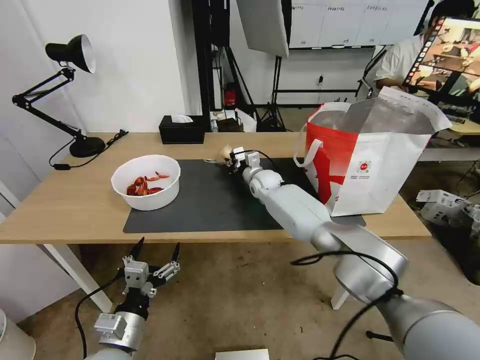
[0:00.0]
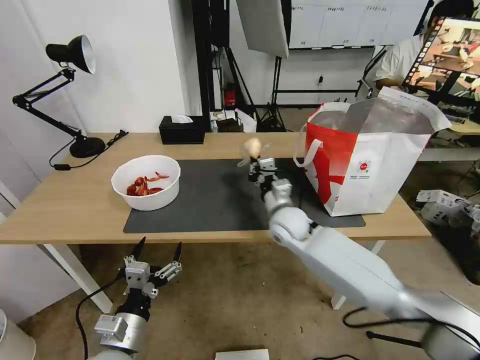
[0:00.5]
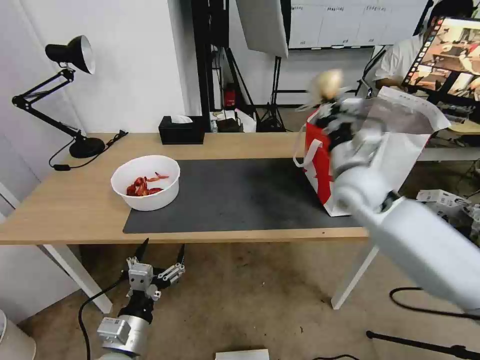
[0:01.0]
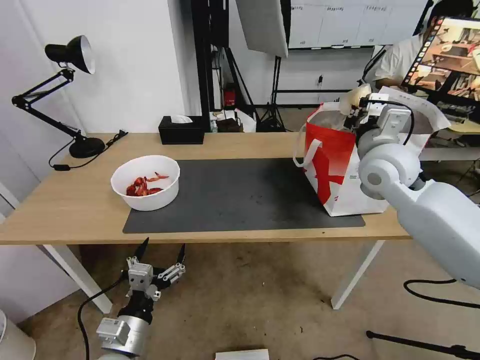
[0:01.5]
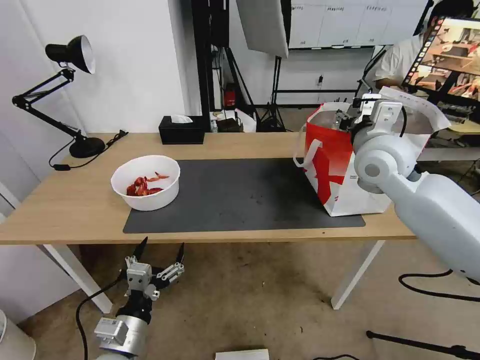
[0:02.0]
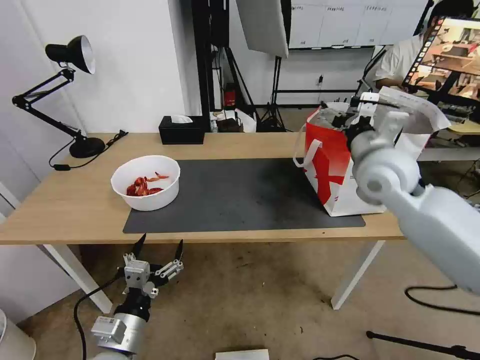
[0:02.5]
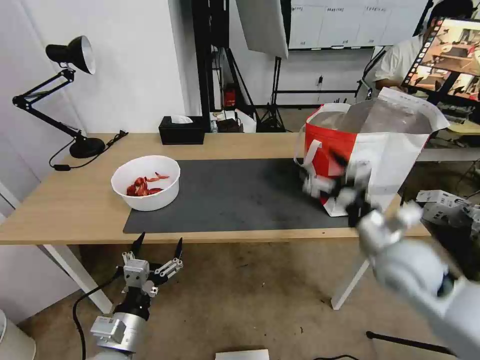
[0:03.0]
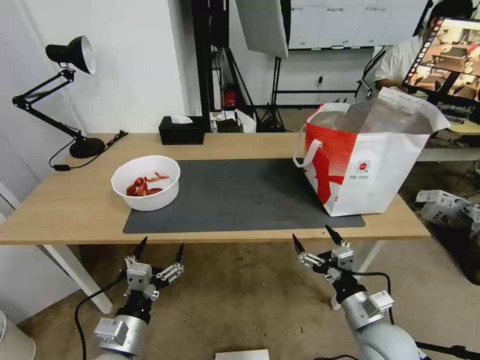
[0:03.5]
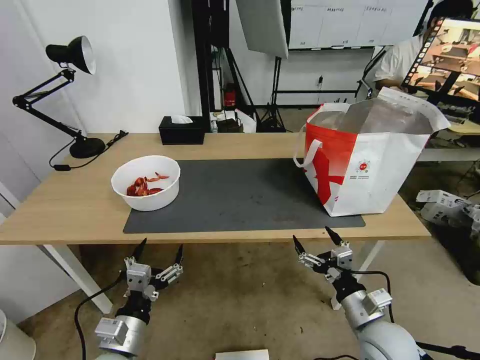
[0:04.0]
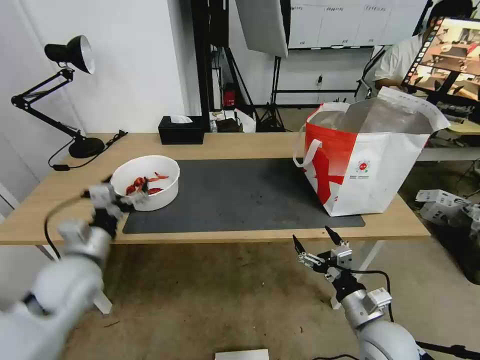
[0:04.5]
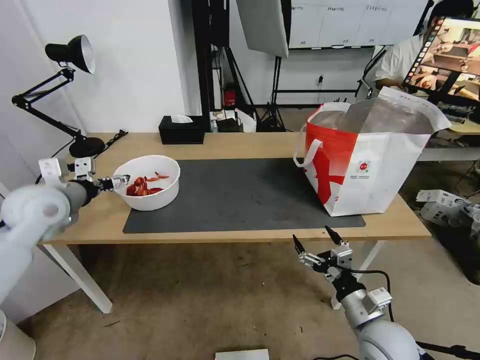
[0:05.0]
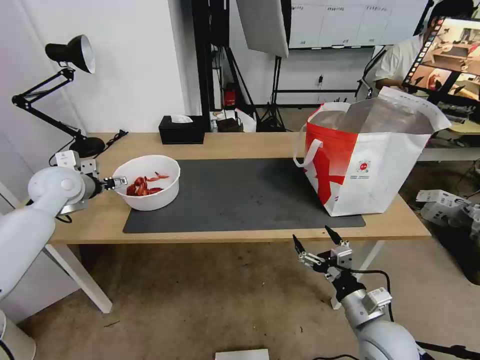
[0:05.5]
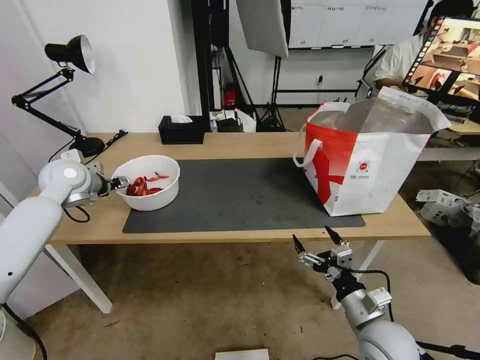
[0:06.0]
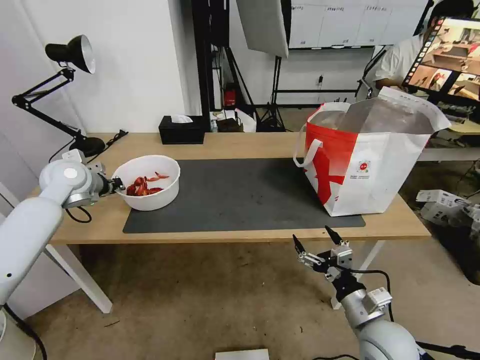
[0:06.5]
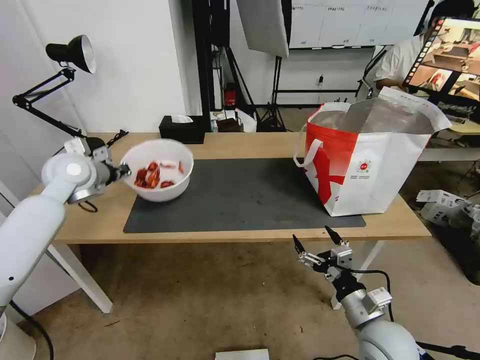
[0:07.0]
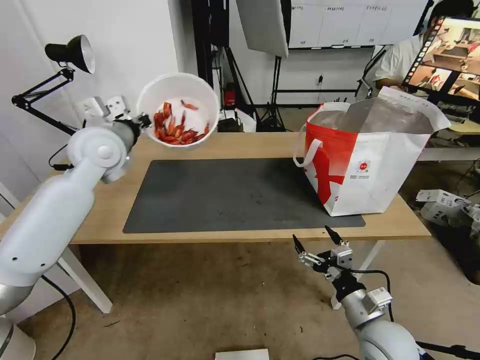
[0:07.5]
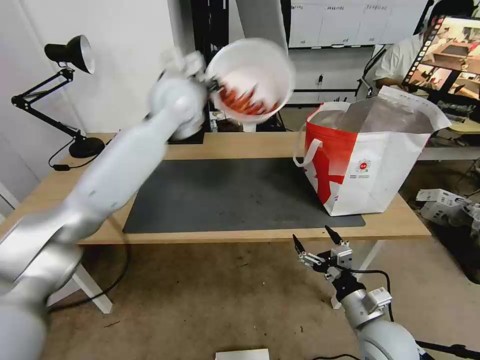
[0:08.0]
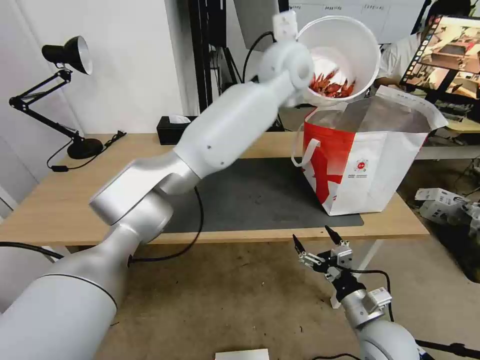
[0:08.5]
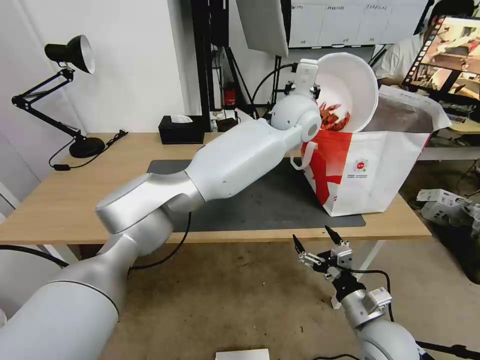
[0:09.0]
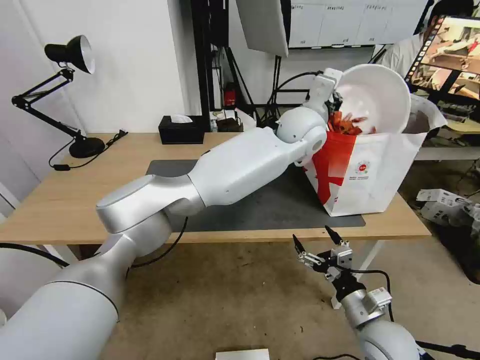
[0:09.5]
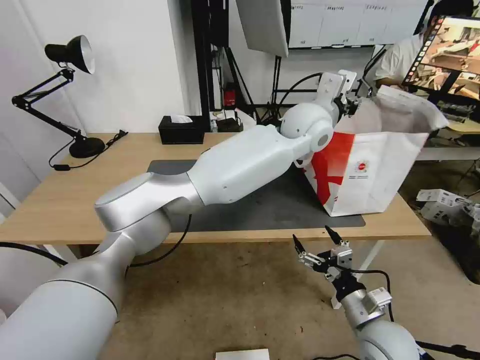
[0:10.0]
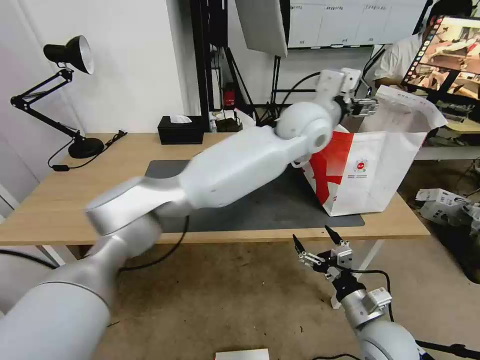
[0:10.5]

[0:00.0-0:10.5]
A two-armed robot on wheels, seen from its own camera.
Task of the whole recording: Pick up the trash from the table and place it into the takeout bag.
0:00.0 to 0:02.0: The right gripper heads upward, backward and to the right, covering some 35 cm, and opens its fingers.
0:02.0 to 0:04.0: The right gripper is displaced downward and backward by some 35 cm, and opens up.
0:04.0 to 0:06.5: The left gripper goes some 40 cm forward, upward and to the left, and closes up.
0:06.5 to 0:08.5: The left gripper heads to the right and upward, covering roughly 50 cm.
0:08.5 to 0:10.5: The left gripper is displaced downward and backward by approximately 10 cm, and opens its fingers.

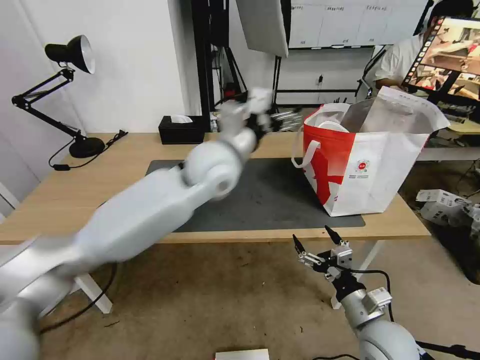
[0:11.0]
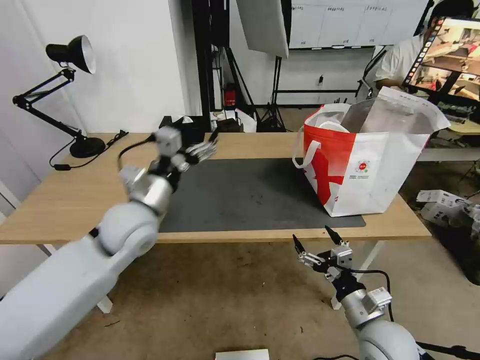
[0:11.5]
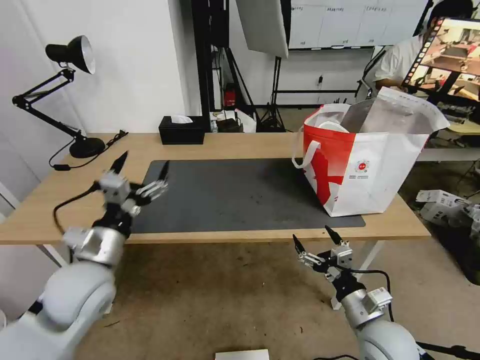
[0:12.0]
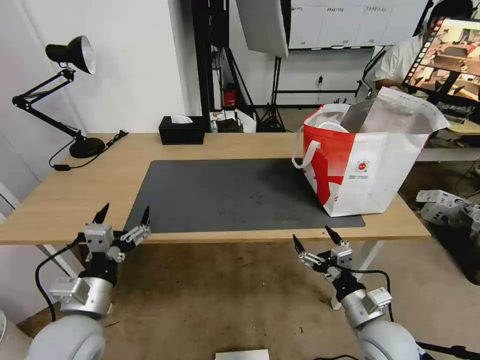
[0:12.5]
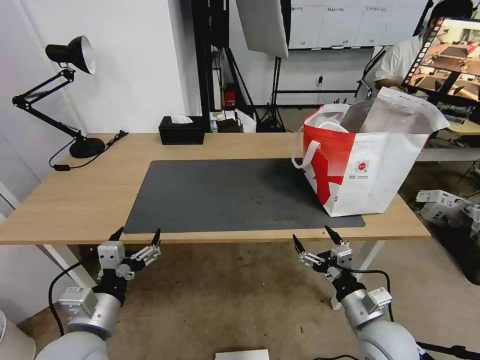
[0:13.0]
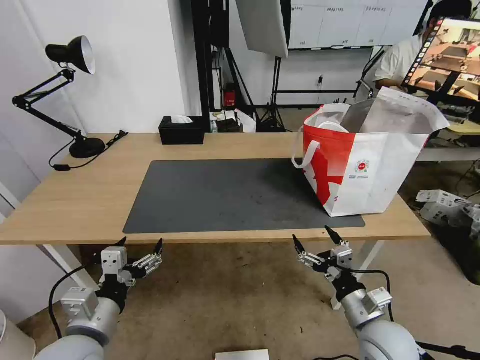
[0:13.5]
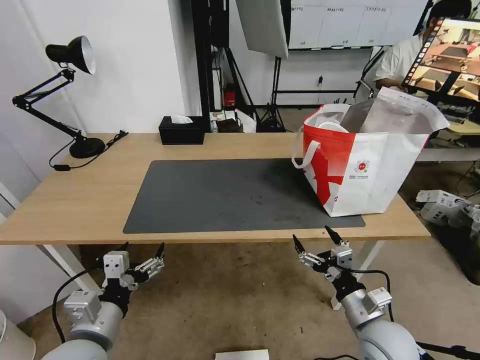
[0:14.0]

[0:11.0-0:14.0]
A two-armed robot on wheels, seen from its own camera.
Task of the whole recording: Pick up the trash from the table and place it into the takeout bag.
0:11.0 to 0:12.5: The left gripper goes roughly 40 cm to the left, backward and downward.

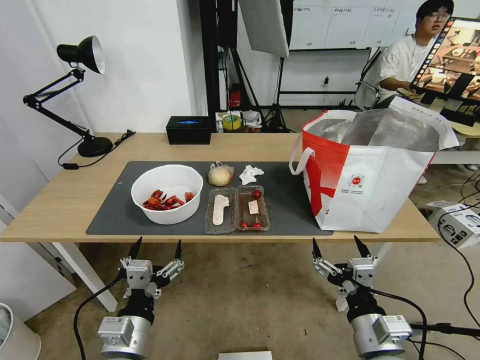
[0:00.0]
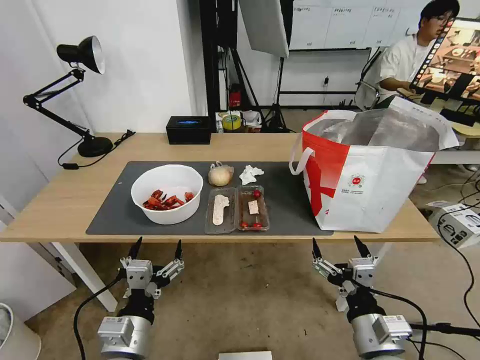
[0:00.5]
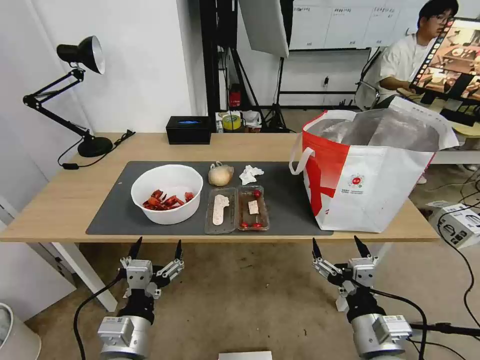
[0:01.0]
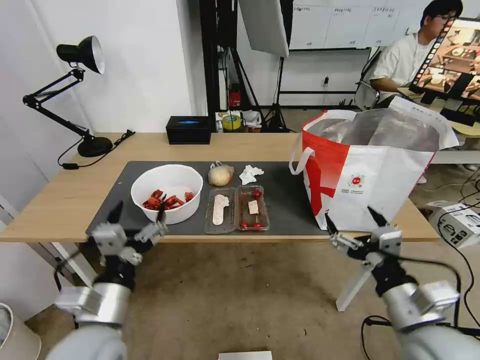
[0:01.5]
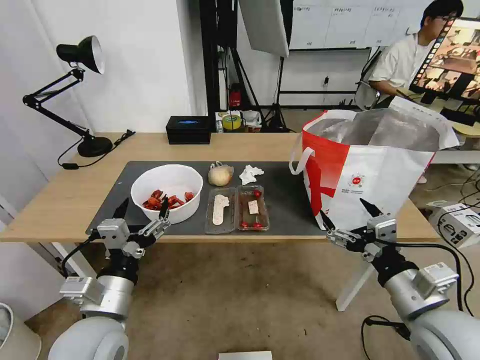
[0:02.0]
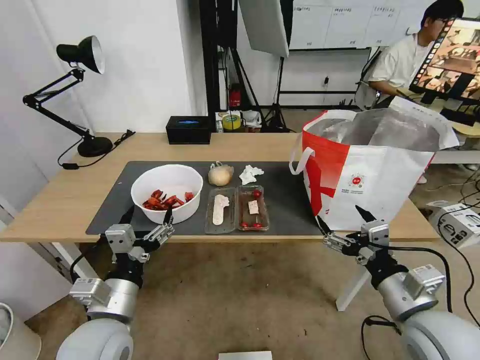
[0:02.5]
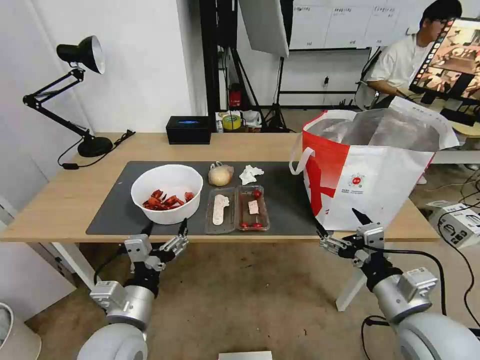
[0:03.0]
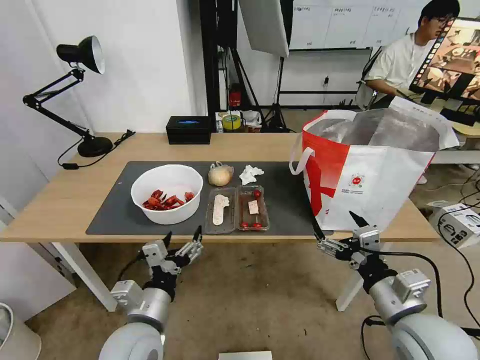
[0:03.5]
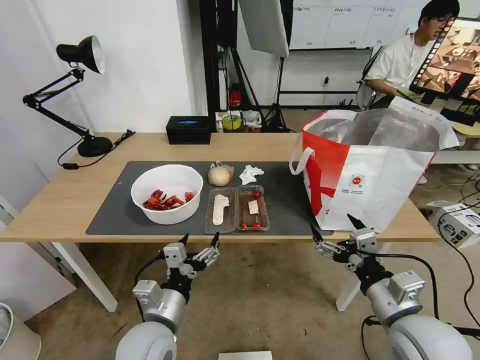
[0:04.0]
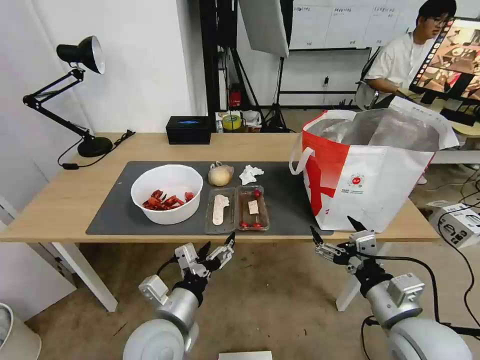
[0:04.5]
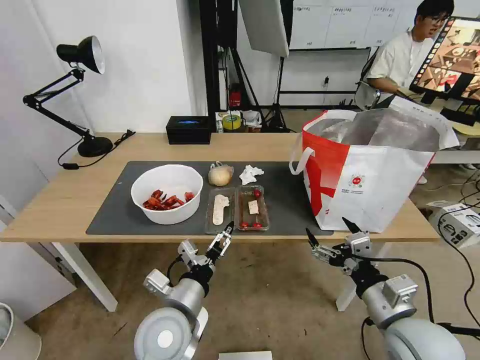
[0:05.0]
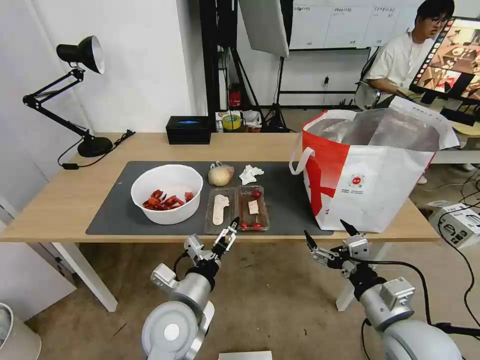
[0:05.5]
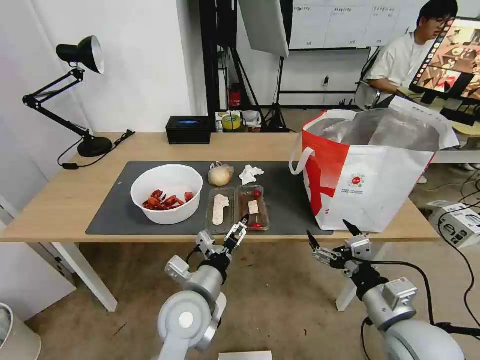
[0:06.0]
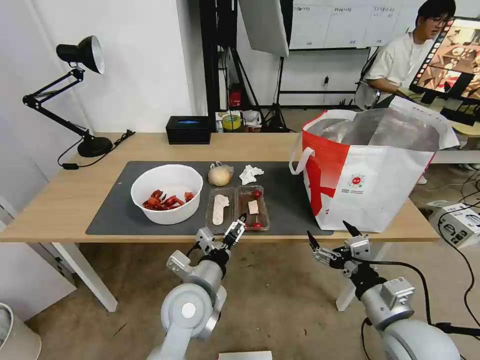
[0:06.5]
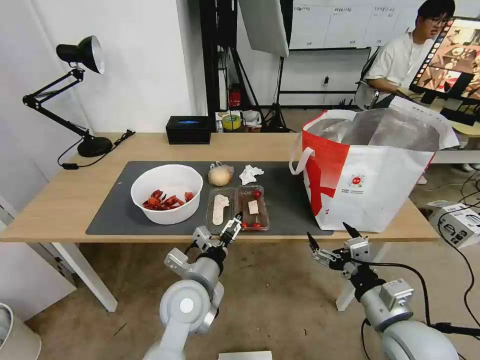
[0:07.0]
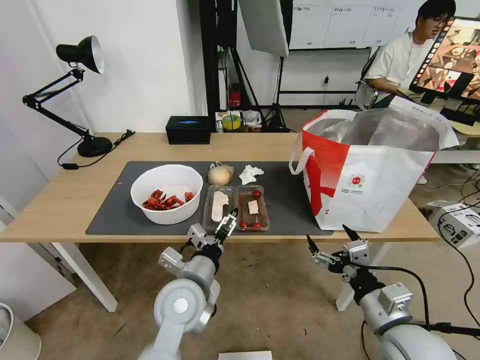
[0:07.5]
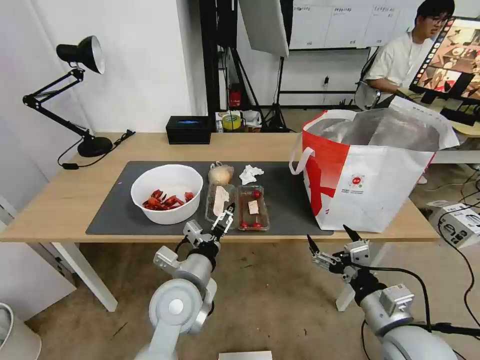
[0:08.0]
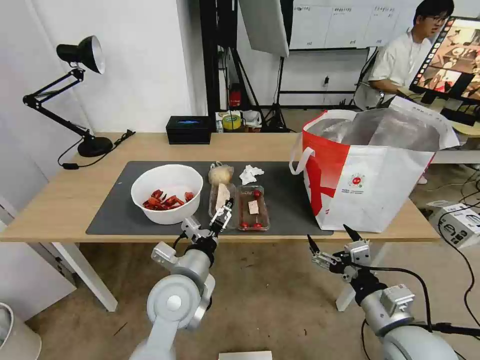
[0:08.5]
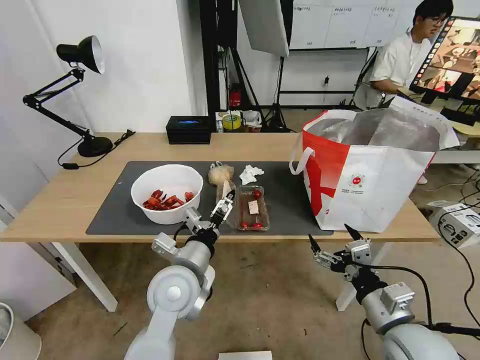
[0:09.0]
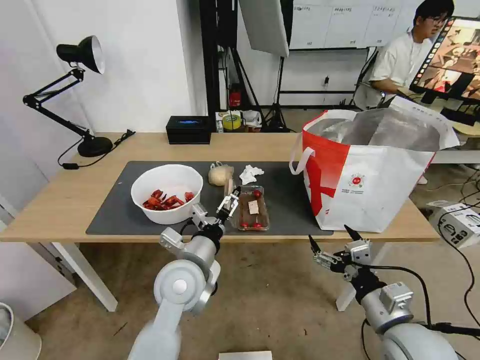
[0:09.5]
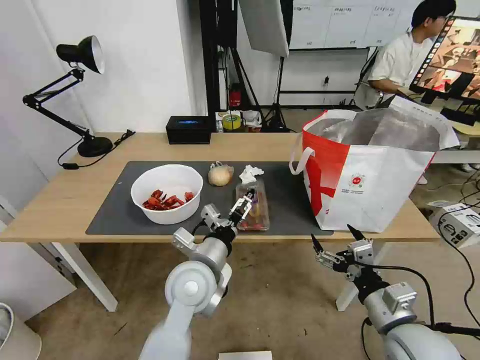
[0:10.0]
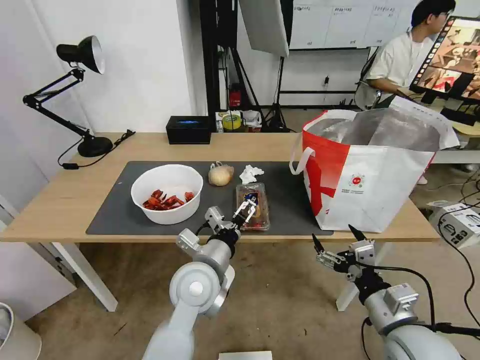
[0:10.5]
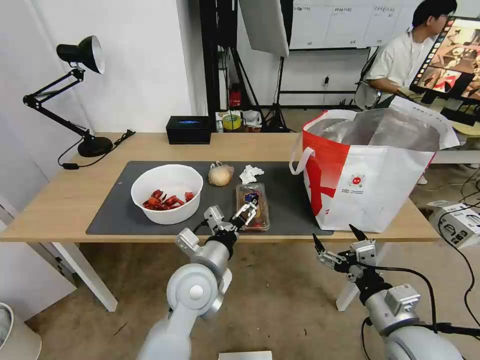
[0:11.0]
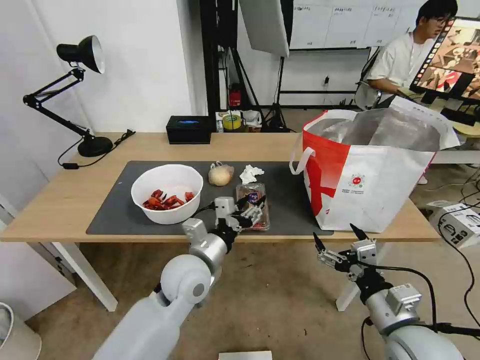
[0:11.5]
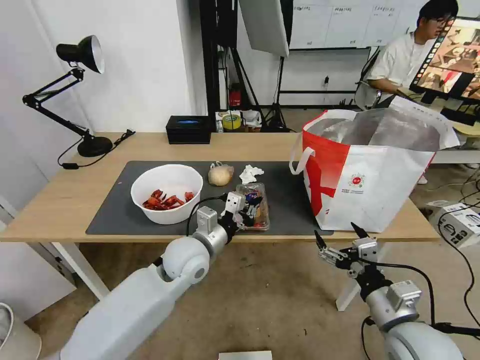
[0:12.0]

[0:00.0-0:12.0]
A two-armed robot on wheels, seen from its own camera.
Task of the whole recording: Pick up the trash from the table and place it into the takeout bag.
0:02.0 to 0:04.0: The left gripper shifts approximately 10 cm downward and to the right.
0:04.0 to 0:06.0: The left gripper moves to the right, approximately 5 cm.
0:06.0 to 0:10.0: There are only small adjustments of the grippers.
0:10.0 to 0:12.0: The left gripper shifts some 5 cm forward, and closes up.
